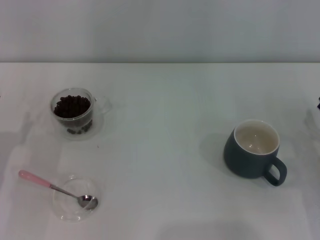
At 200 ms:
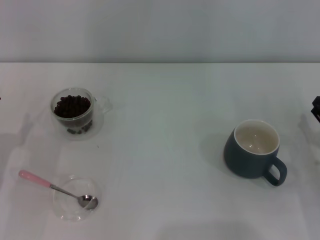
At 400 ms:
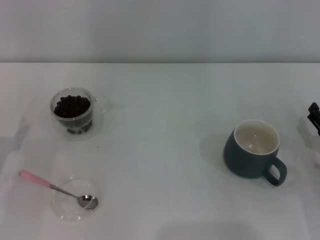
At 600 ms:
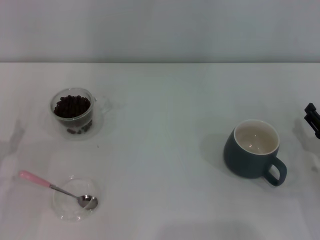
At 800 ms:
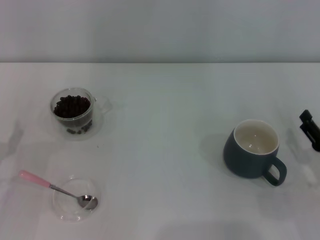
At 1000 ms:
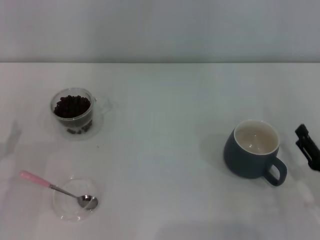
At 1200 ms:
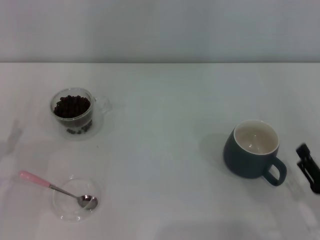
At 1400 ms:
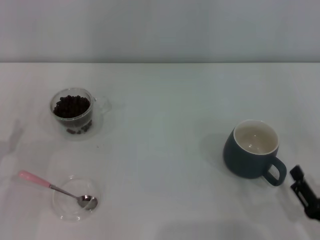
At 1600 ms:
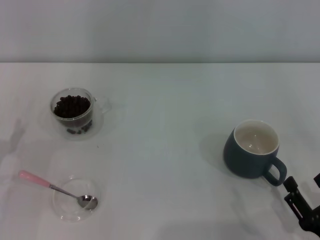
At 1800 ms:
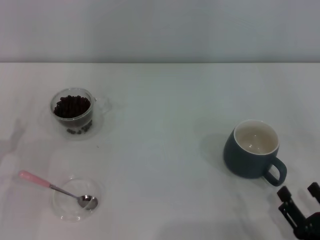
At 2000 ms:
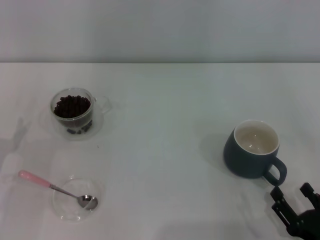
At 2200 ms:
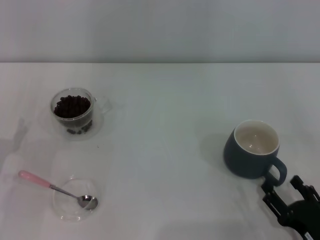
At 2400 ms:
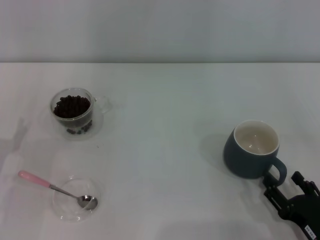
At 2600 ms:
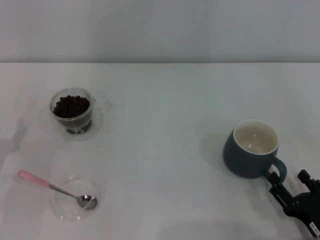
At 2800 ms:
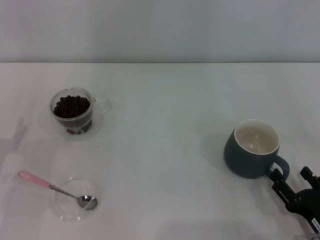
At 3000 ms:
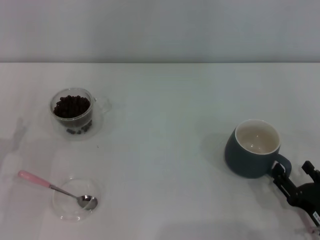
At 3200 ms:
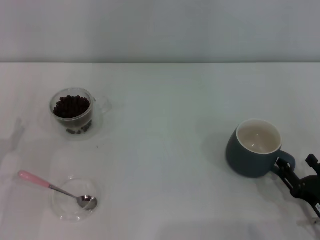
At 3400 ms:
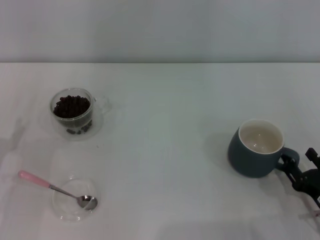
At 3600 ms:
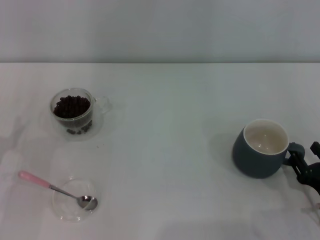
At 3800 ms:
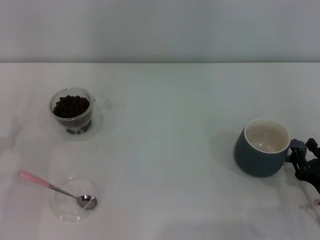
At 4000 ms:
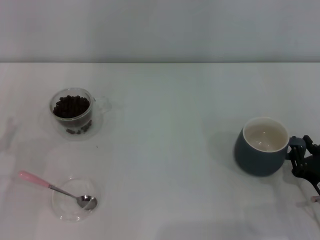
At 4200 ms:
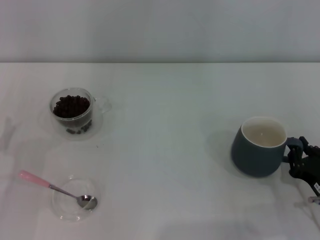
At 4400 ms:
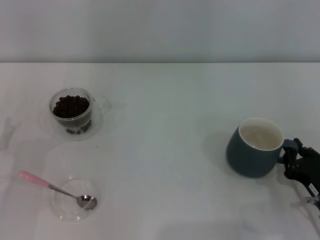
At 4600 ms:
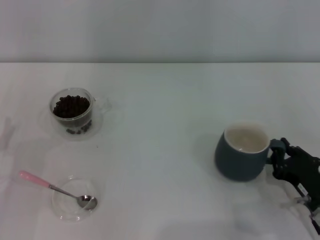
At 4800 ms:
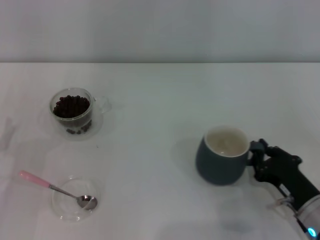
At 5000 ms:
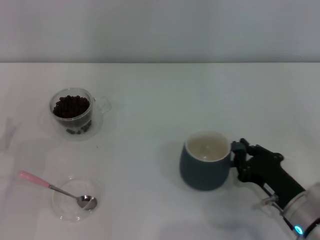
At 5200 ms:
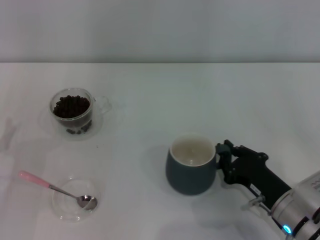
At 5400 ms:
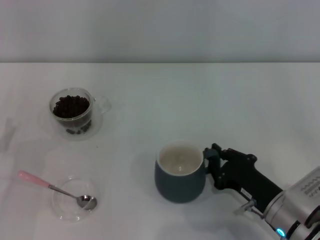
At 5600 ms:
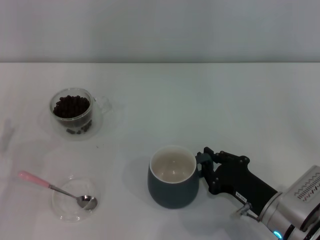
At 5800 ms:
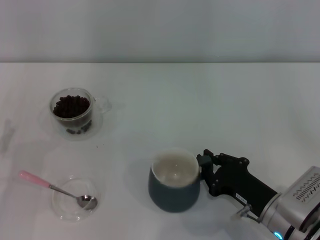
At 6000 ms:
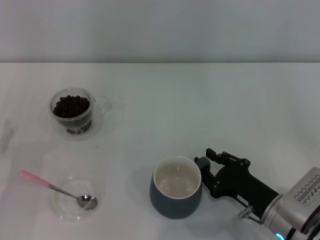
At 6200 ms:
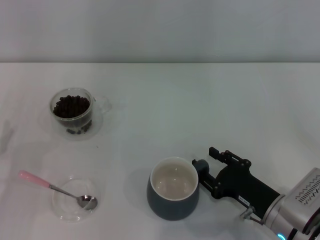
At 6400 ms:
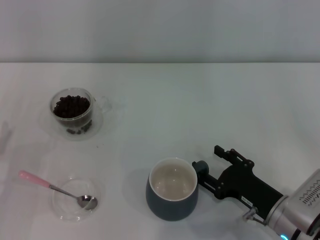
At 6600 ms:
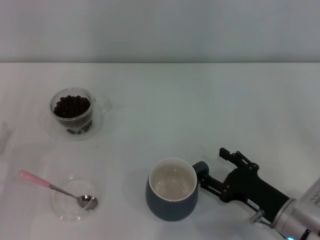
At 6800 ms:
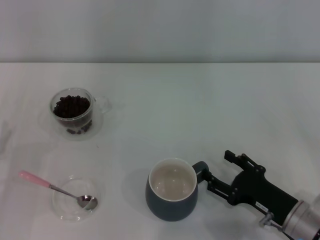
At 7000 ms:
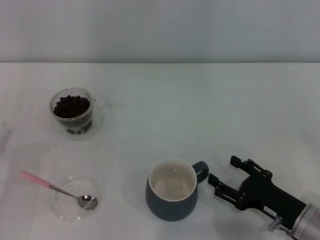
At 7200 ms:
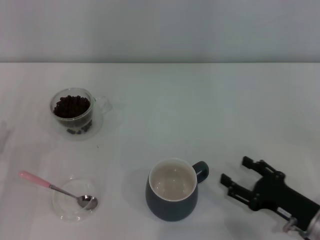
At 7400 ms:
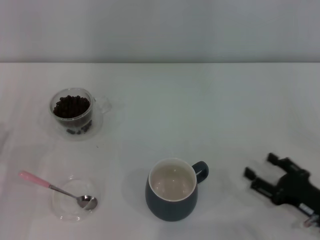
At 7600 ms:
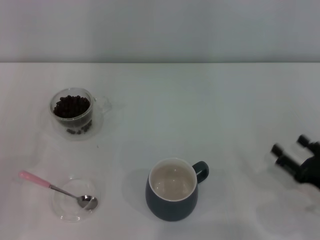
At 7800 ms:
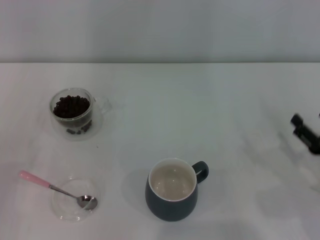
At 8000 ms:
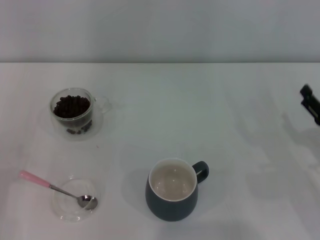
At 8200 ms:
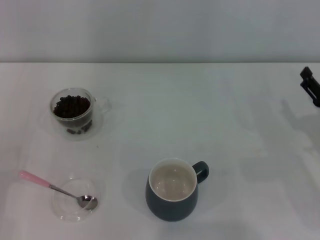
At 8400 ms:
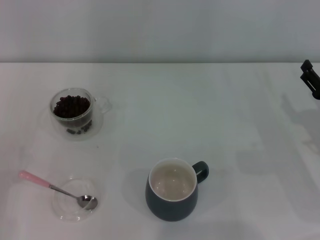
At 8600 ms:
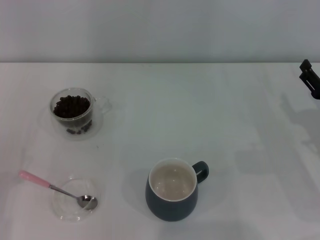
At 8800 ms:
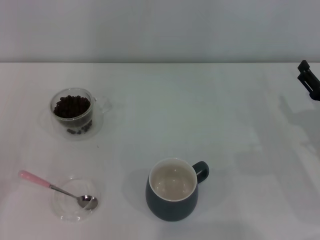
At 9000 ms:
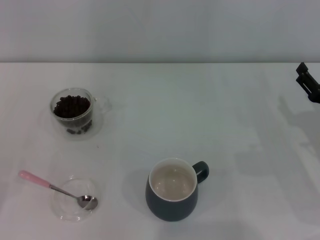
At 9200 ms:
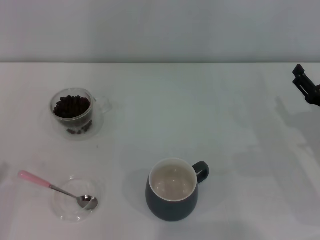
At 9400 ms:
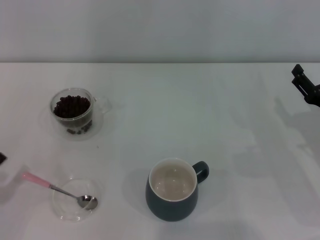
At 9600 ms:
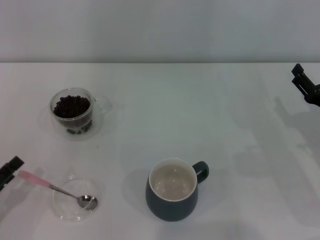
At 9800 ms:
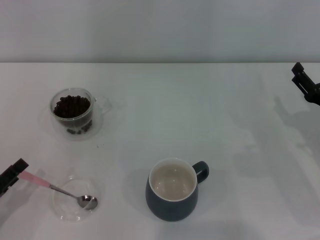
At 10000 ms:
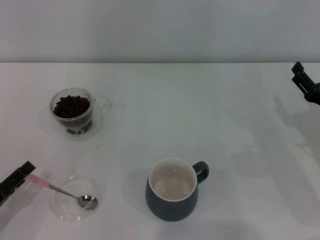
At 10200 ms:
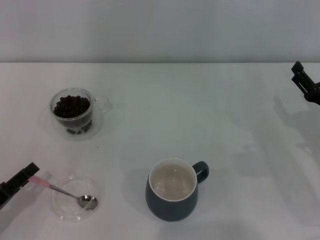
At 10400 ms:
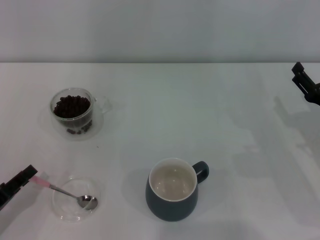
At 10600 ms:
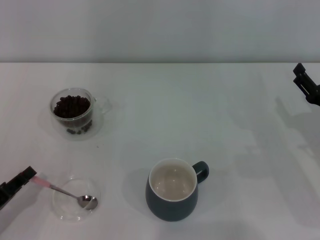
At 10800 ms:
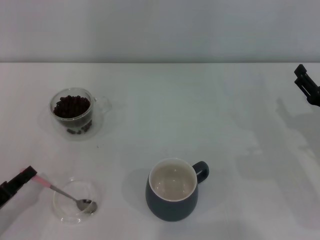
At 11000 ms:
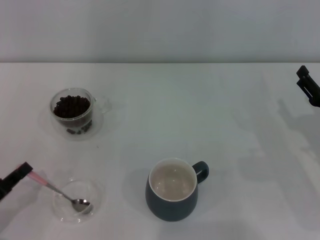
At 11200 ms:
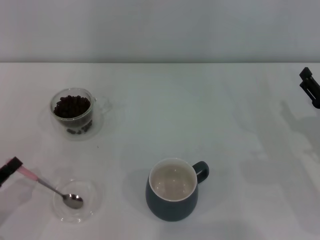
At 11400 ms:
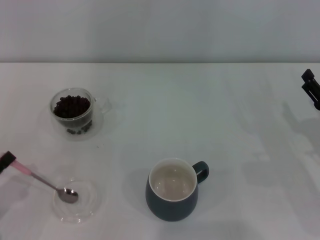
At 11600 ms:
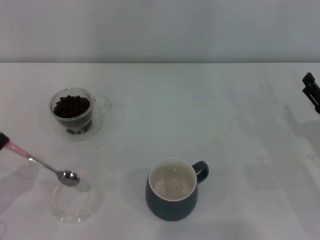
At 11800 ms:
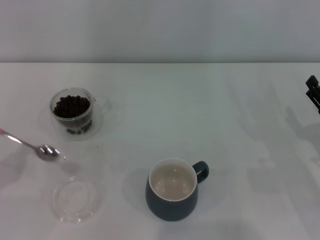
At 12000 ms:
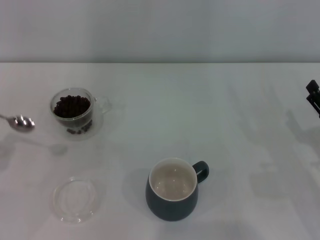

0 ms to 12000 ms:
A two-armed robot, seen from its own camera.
Task of the whole recording: Use a pink spoon to take out the coffee beans from the glass and pour them into the gray cup.
Step, 7200 ms to 11600 ms: Pick up the spoon with the right gripper.
0 ms to 1600 ms: The right gripper heads backward and to the left, covering about 20 cm.
1600 ms to 3000 ms: The right gripper travels forward by roughly 5 cm.
3000 ms to 4400 ms: The right gripper closes its fingers.
4400 ms to 6000 ms: The right gripper heads to the left, covering about 10 cm.
6000 ms to 7600 ms: The right gripper goes some 10 cm to the right, and opens.
7600 ms to 9000 ms: The right gripper heads forward, covering approximately 10 cm.
9000 ms to 10400 ms: The left gripper heads to the right, covering roughly 5 cm.
10400 ms to 12000 ms: The left gripper travels upward and to the left by roughly 10 cm, and closes its fingers.

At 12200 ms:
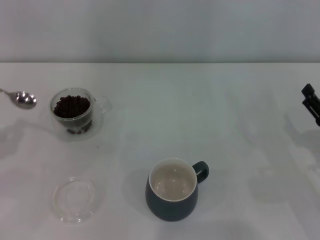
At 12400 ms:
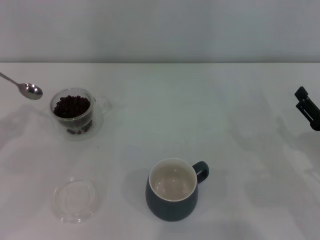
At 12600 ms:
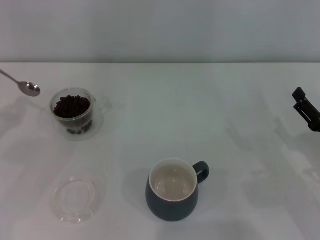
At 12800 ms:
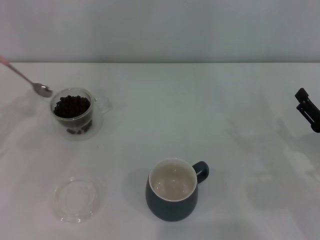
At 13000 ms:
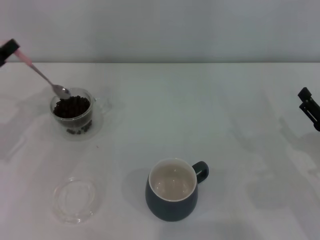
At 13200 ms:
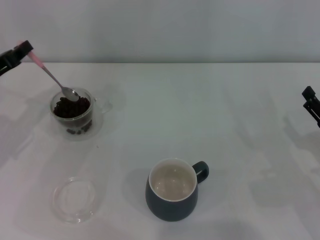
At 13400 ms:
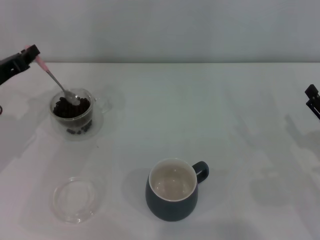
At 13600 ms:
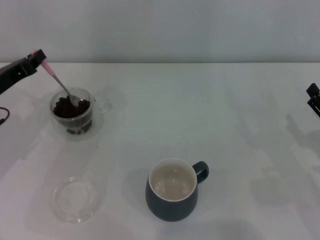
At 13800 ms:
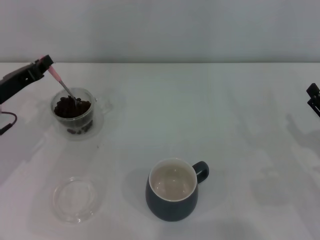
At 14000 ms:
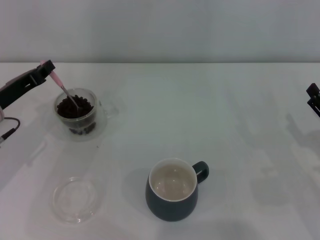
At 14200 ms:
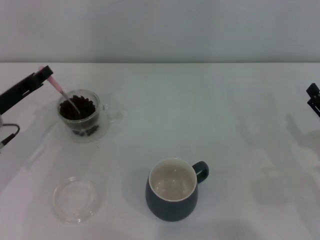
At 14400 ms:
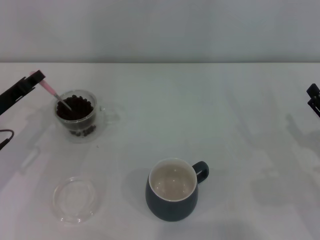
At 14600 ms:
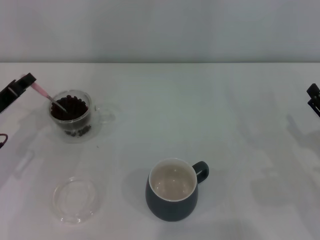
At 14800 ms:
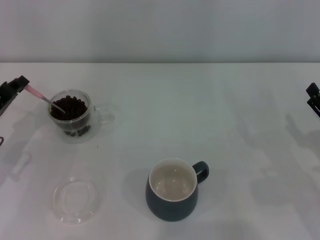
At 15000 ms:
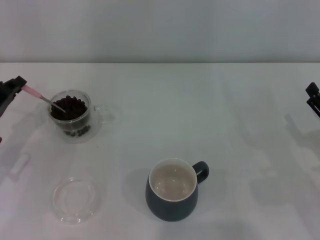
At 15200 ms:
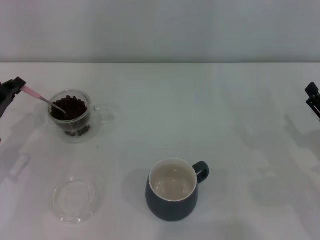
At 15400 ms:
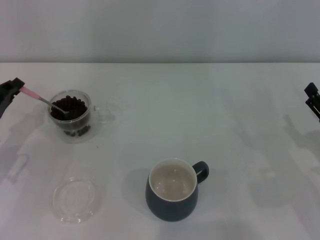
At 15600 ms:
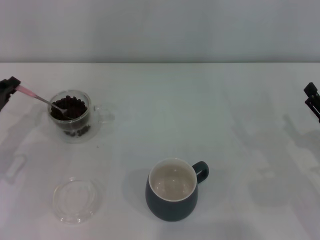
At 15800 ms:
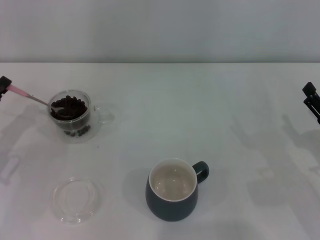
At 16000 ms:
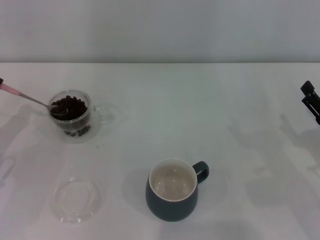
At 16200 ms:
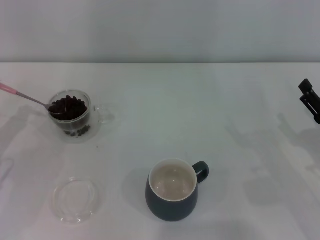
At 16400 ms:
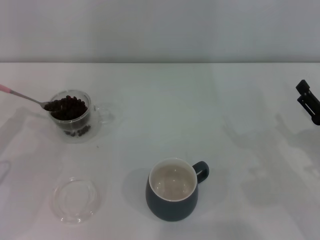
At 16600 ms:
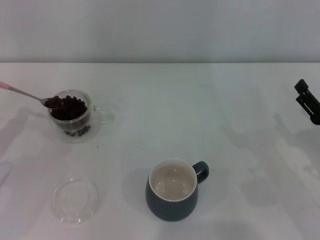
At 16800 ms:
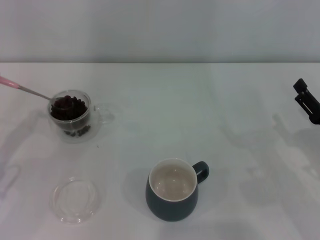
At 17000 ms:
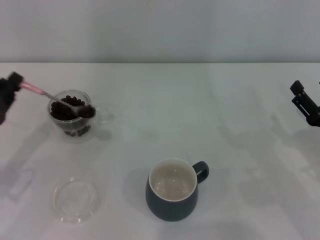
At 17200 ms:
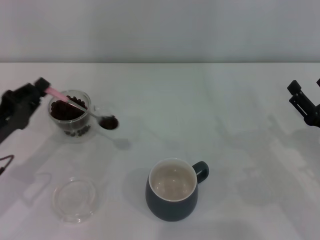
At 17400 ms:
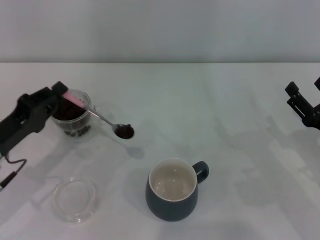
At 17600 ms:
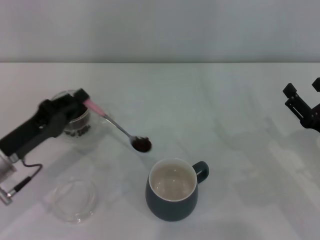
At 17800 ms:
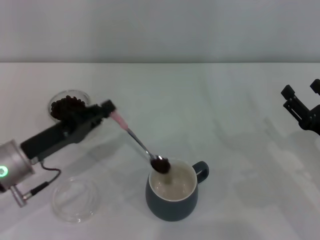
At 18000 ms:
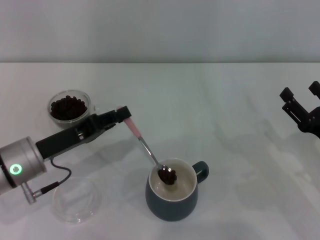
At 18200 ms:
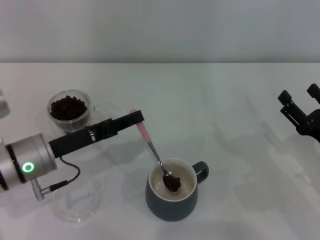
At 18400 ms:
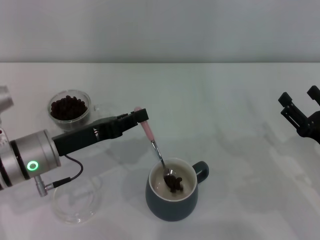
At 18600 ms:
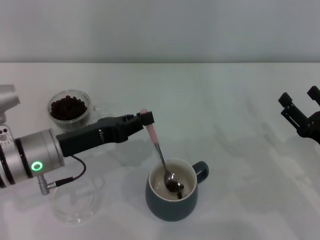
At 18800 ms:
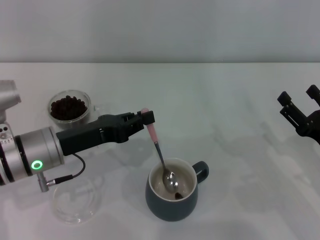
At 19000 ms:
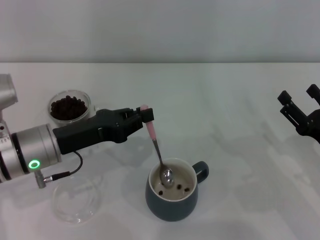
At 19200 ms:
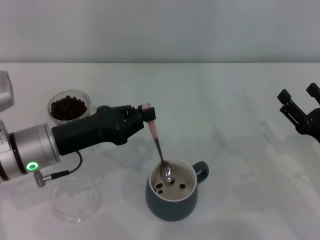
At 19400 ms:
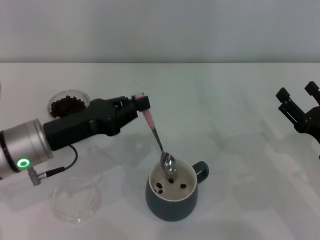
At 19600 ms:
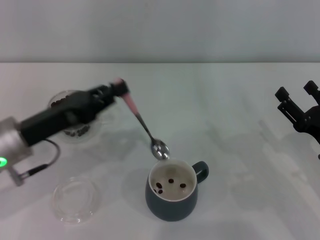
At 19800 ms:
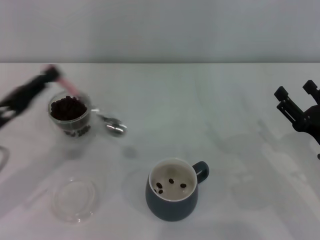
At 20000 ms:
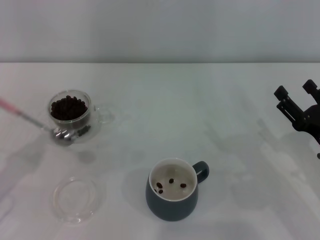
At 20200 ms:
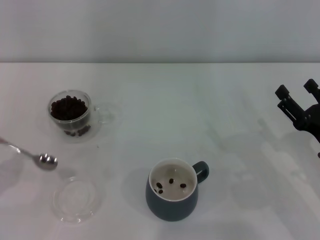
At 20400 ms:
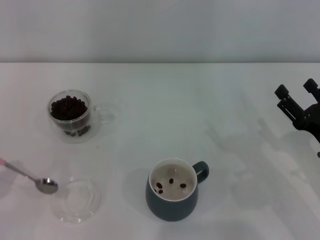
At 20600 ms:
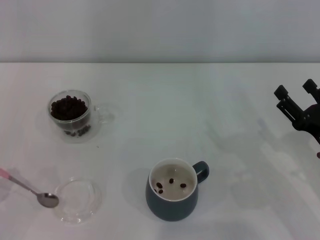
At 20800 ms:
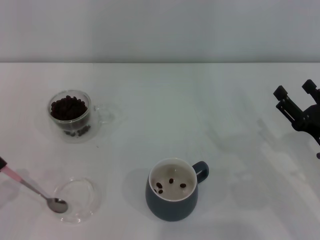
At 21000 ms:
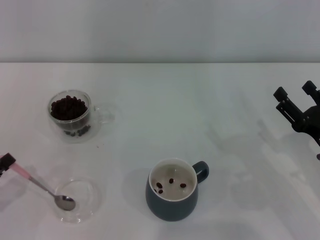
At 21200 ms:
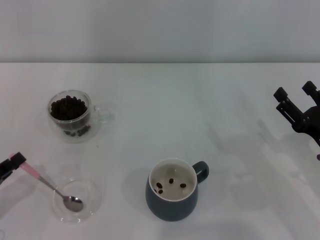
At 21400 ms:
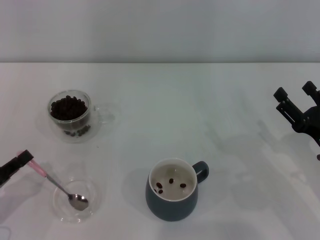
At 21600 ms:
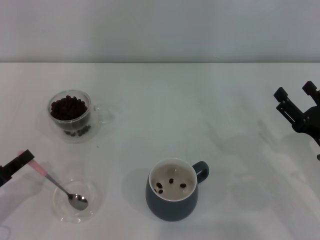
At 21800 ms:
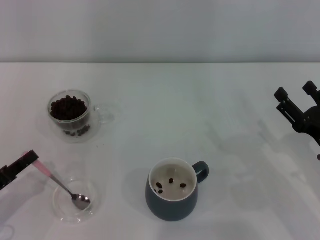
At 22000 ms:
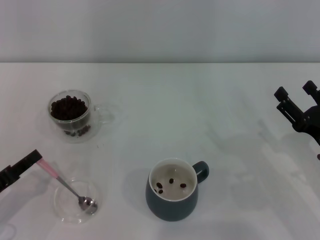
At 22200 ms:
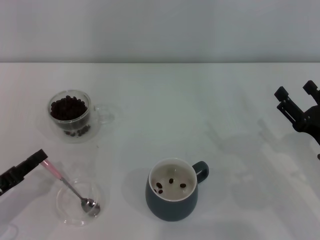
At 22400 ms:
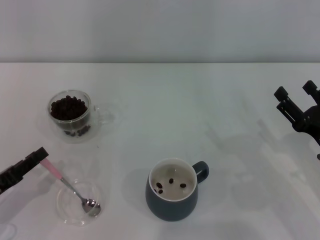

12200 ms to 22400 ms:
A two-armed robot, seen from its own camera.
Task of the whole recording: Use a pink spoon to take out the coffee beans from the glass and pour them into the gray cup.
12200 ms to 13600 ms: The left gripper is displaced forward and to the right by approximately 15 cm.
13600 ms to 15200 ms: The left gripper shifts by roughly 5 cm.
15200 ms to 16600 ms: The left gripper moves some 5 cm.
16600 ms to 18000 ms: The left gripper is displaced to the right by roughly 15 cm.
19400 ms to 21000 ms: The left gripper heads to the left, backward and downward, covering about 20 cm.
21000 ms to 22400 ms: There are only small adjustments of the grippers.
